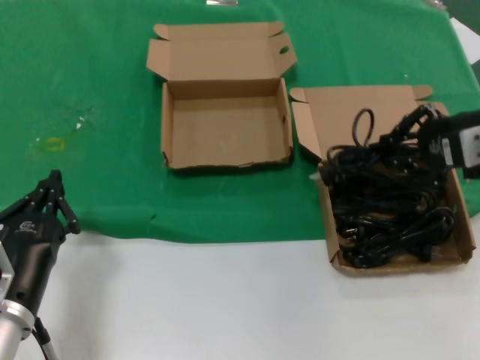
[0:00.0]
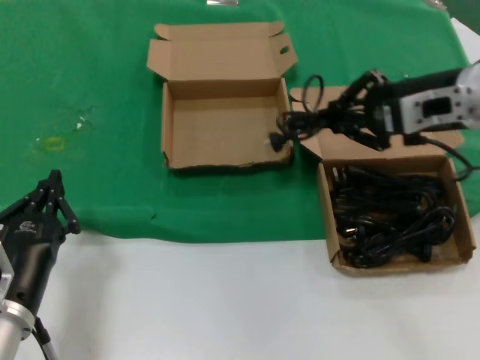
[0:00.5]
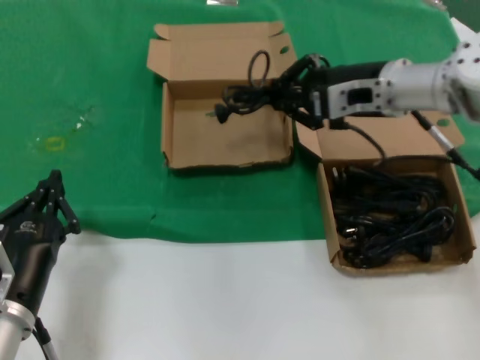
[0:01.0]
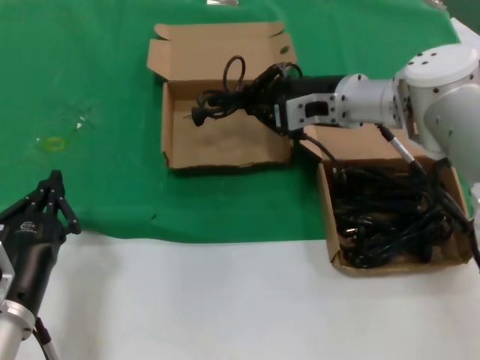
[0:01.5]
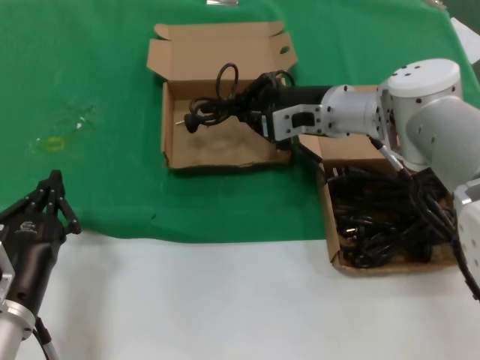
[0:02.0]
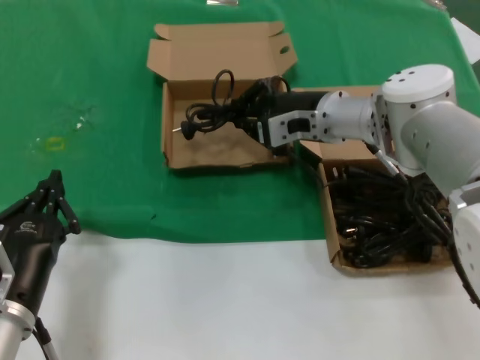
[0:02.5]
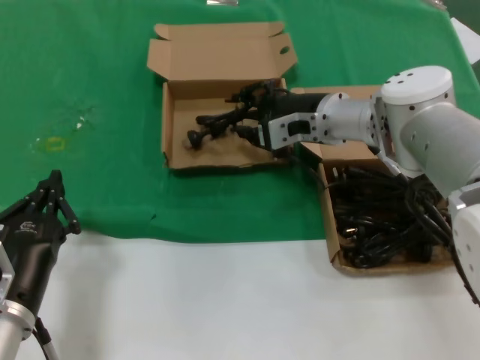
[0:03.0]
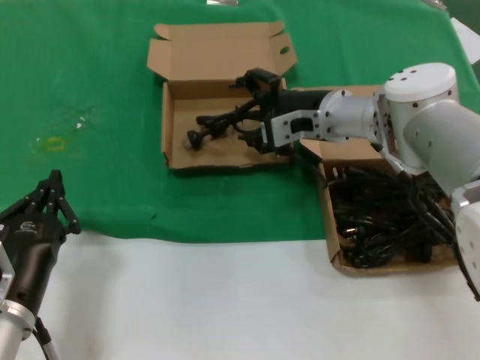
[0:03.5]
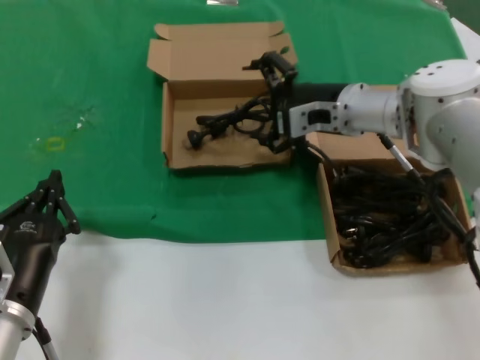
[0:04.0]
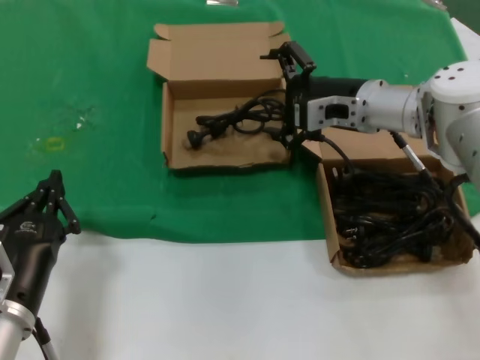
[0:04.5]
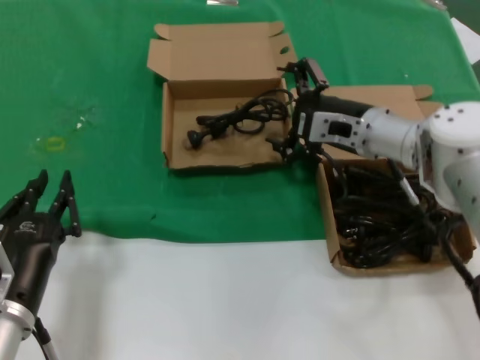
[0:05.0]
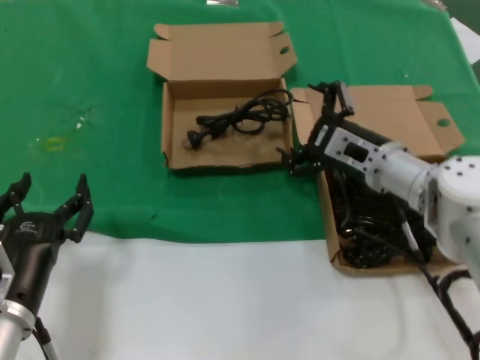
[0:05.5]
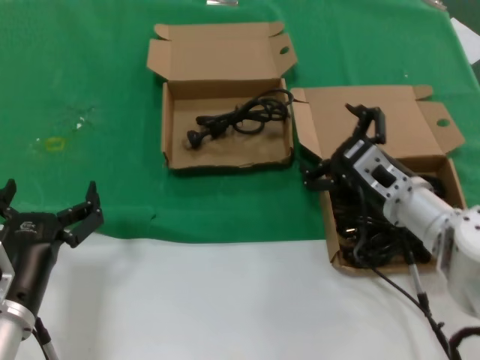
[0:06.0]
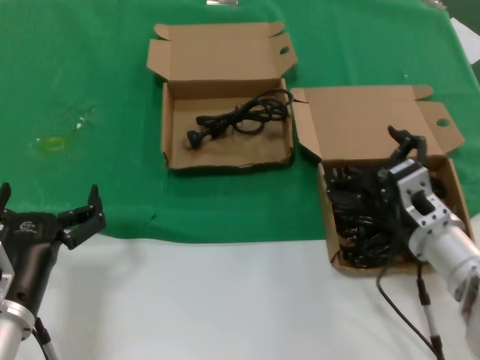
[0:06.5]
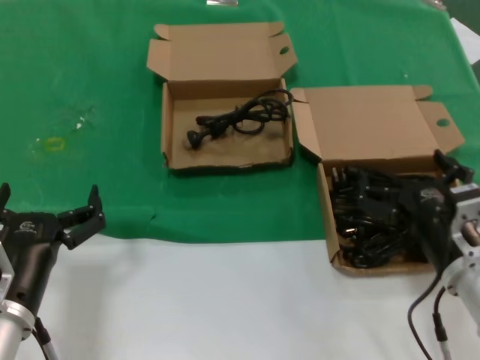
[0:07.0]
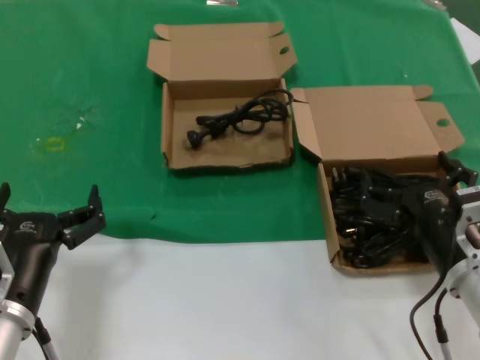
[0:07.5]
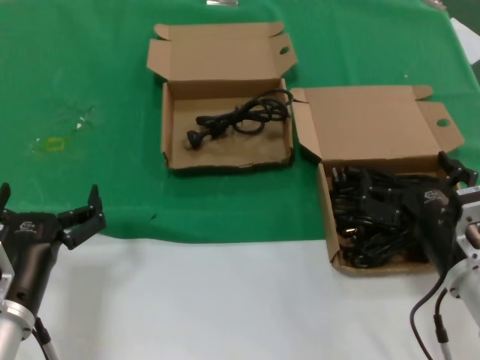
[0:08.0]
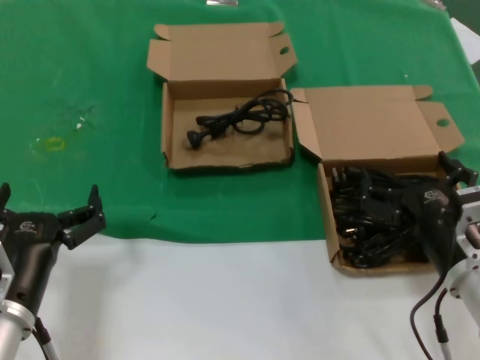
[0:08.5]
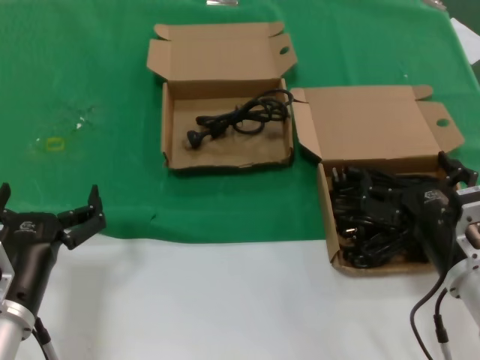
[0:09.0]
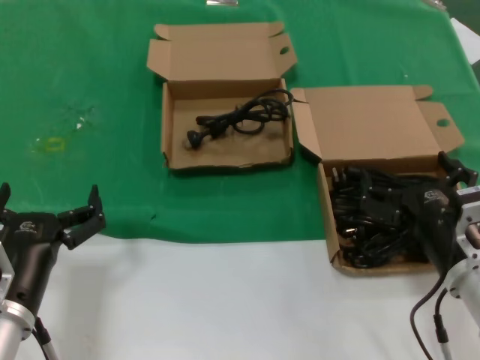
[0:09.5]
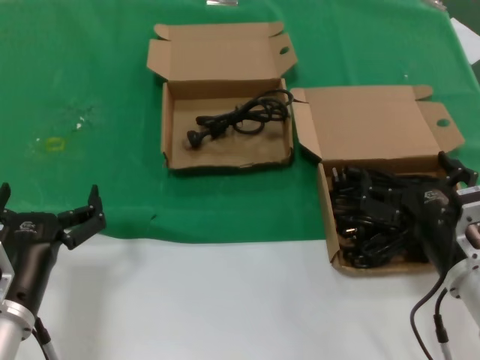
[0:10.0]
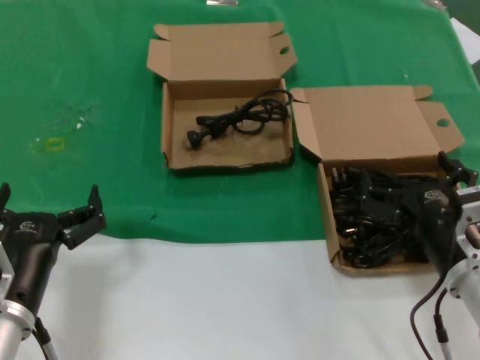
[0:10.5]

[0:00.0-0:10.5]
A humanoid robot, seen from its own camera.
Task of the whole recording: take the parts from the box containing them and put them into an empty box.
Step, 0:00.0 to 0:02.5: Place the data cable in the another box.
0:00.0 to 0:02.0: The right hand travels to the left and forward by approximately 25 cm.
0:02.0 to 0:04.0: The hands make only small movements.
0:04.0 to 0:06.5: The right hand heads backward and downward, covering roughly 20 cm.
0:06.5 to 0:08.5: The right hand moves backward, some 5 cm.
0:08.5 to 0:10.5: Neither hand changes place.

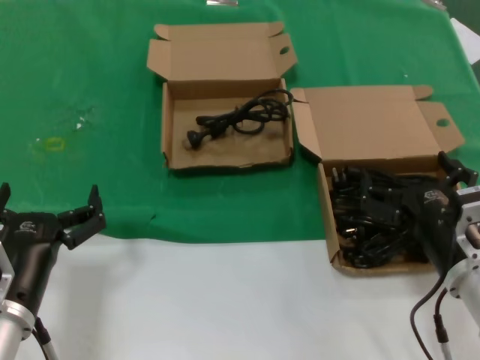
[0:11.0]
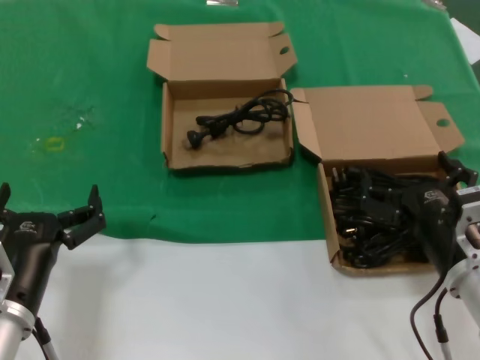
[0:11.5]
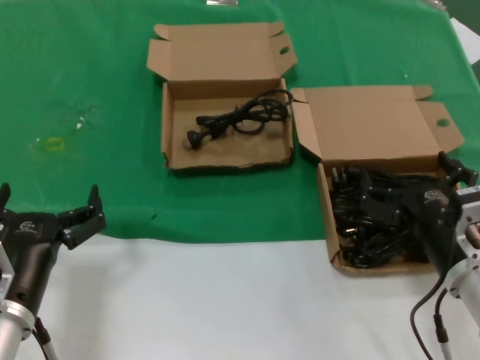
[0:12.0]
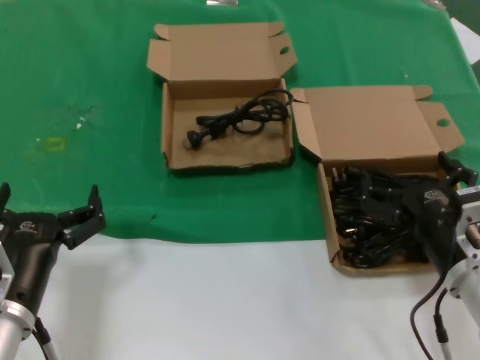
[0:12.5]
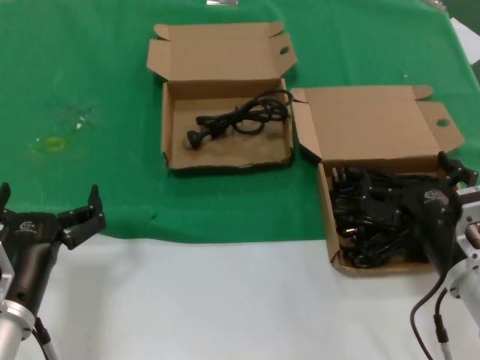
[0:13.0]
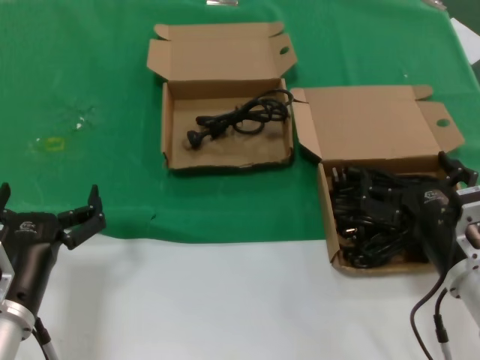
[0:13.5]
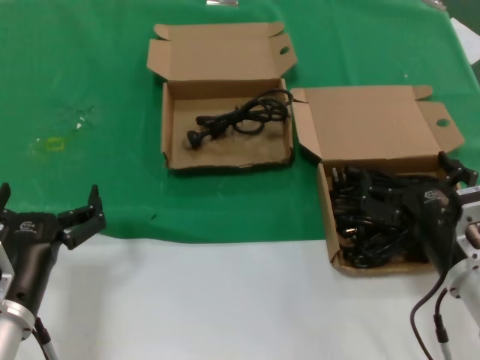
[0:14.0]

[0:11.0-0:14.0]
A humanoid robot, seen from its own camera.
Task of the whole recording: take the parts from the box containing them and put them into an empty box.
0:11.0 to 0:14.0: Both hands stay put.

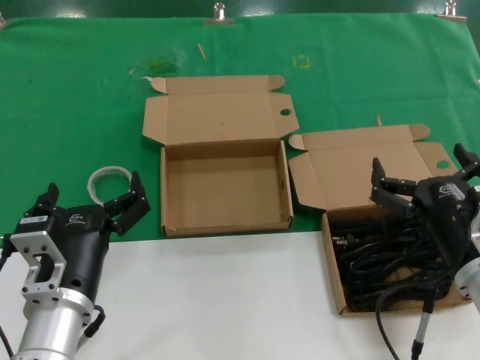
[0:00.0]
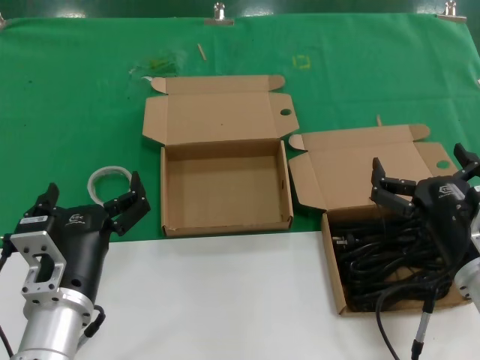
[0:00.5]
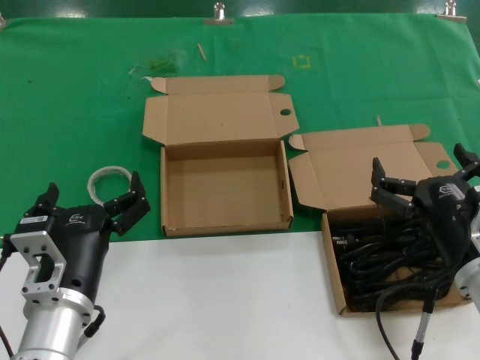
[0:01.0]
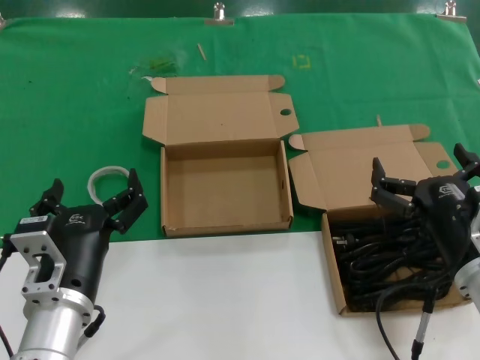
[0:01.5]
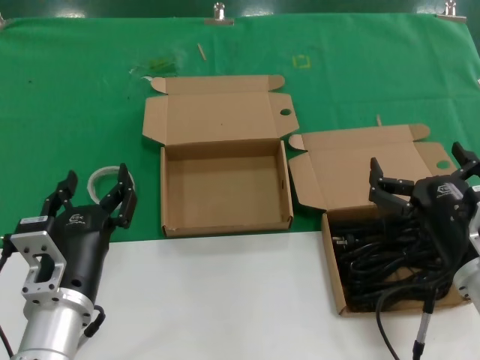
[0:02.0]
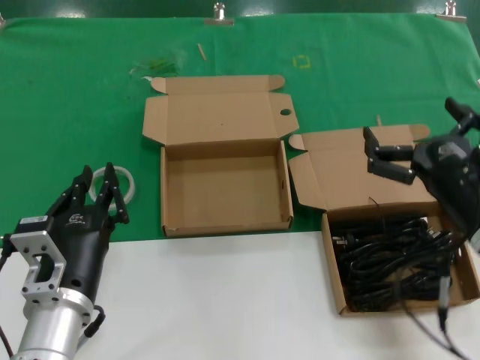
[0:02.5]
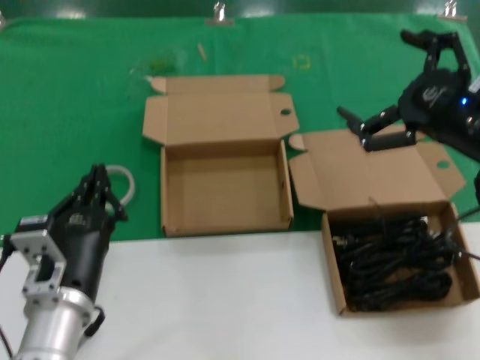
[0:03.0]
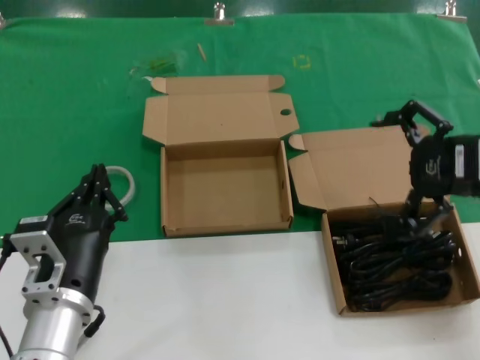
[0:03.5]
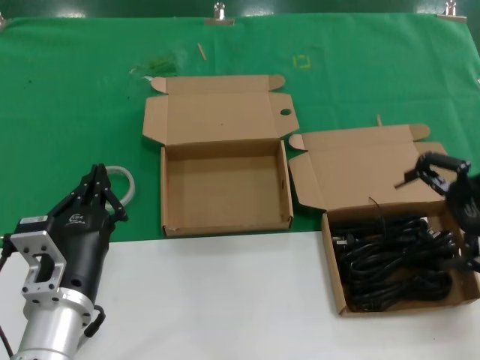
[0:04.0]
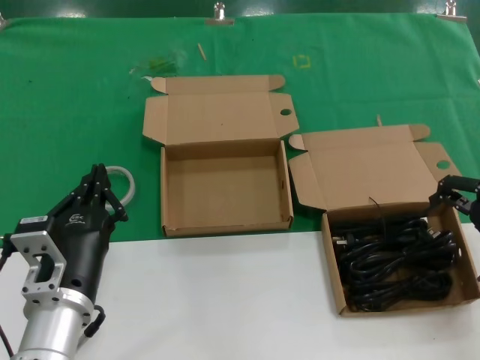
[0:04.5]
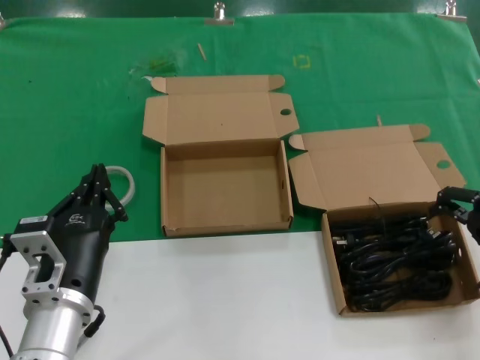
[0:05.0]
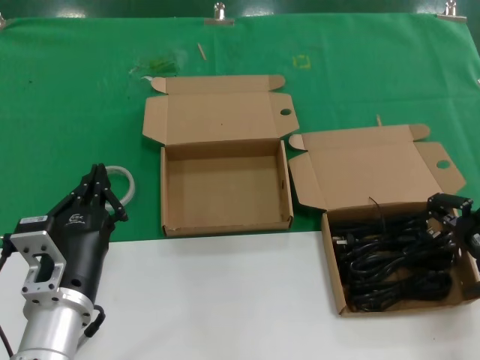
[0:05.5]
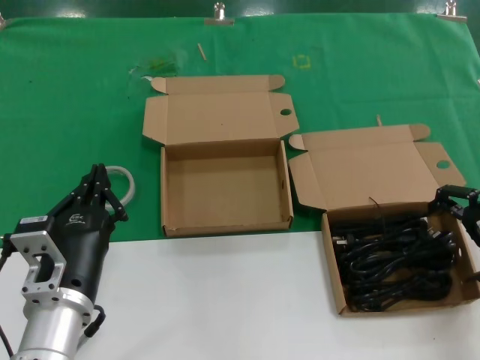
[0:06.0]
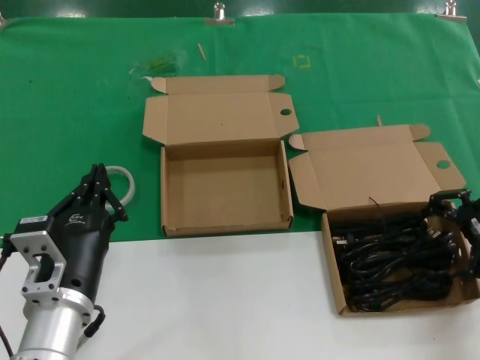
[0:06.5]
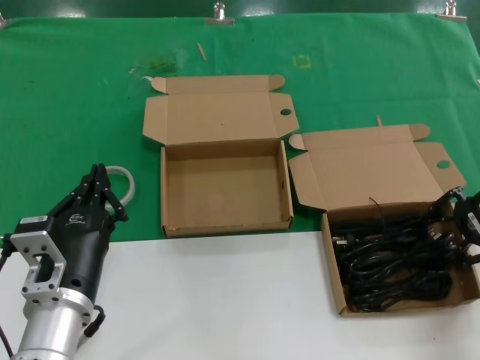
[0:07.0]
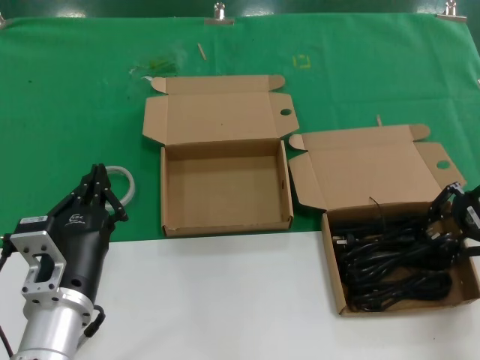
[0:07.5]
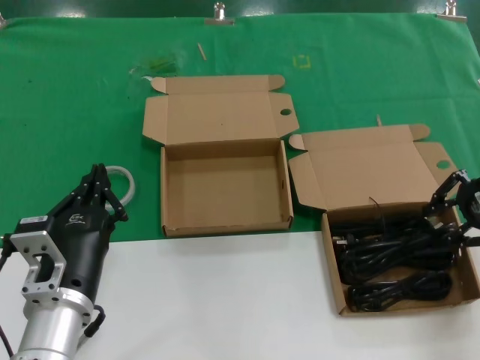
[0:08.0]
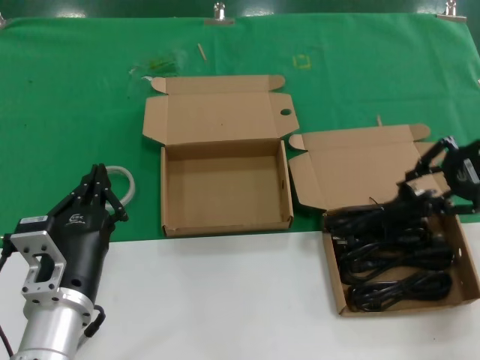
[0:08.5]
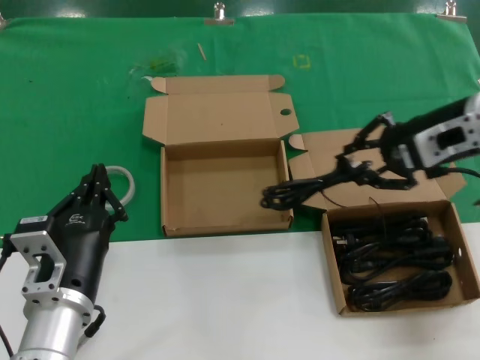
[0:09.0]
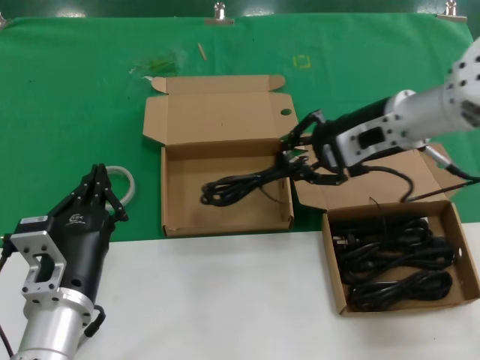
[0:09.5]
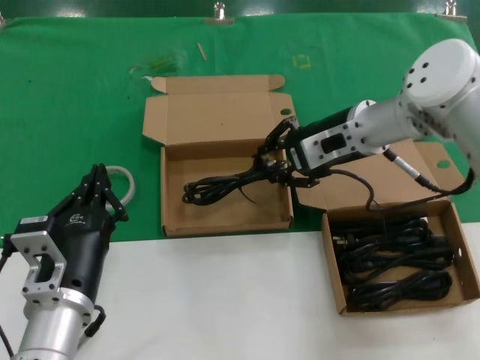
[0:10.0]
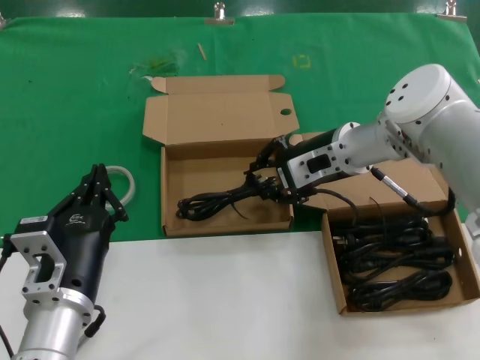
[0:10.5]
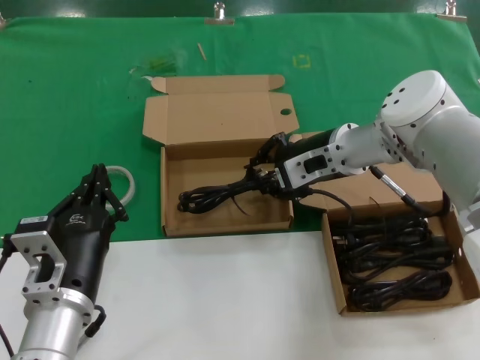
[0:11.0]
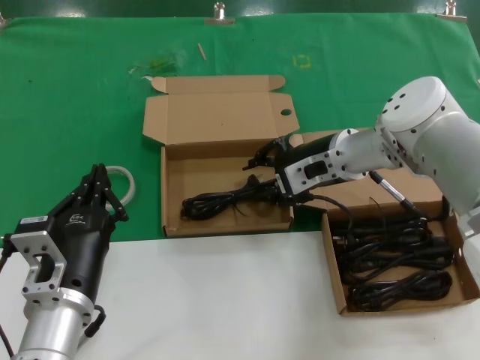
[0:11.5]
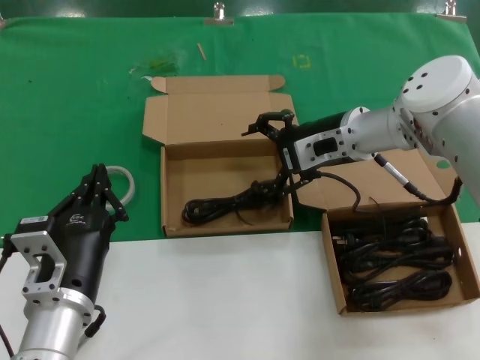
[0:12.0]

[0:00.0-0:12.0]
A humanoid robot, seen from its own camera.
Task of the whole recording: take the parts from the box containing them and put them into an empty box.
Step, 0:00.0 to 0:07.5: Grasp the data cable.
Step, 0:08.0 to 0:11.5: Place the data cable in the another box.
0:00.0 to 0:02.0: The two hands keep their place.
0:02.0 to 0:04.0: The right hand moves upward, to the right and forward, roughly 25 cm.
0:04.0 to 0:06.0: The right hand travels downward and forward by some 10 cm.
0:06.0 to 0:08.0: The hands make only small movements.
0:08.0 to 0:10.0: The right hand is displaced to the left and forward by some 20 cm.
0:10.0 to 0:12.0: The hands make only small movements.
